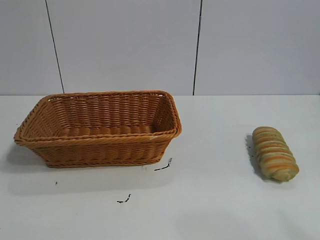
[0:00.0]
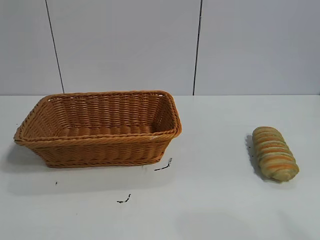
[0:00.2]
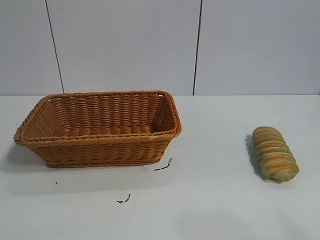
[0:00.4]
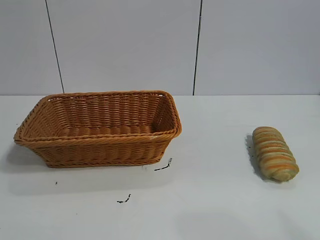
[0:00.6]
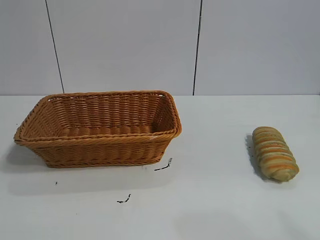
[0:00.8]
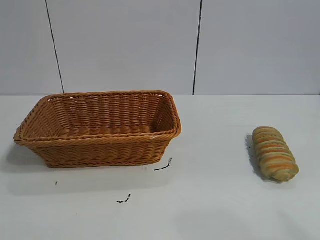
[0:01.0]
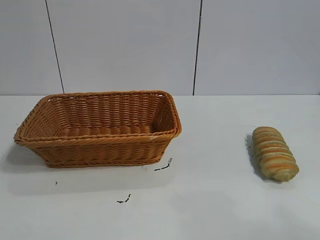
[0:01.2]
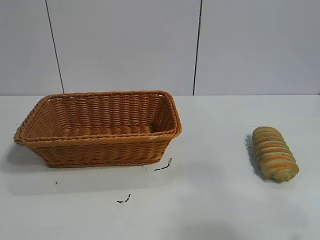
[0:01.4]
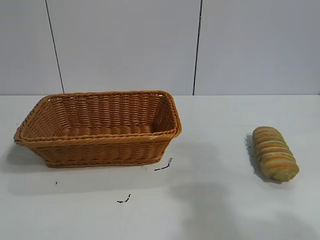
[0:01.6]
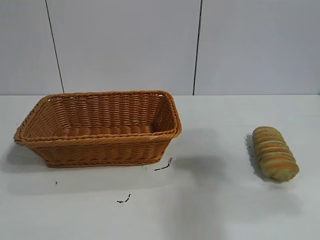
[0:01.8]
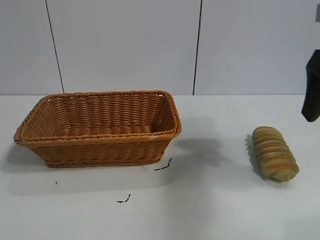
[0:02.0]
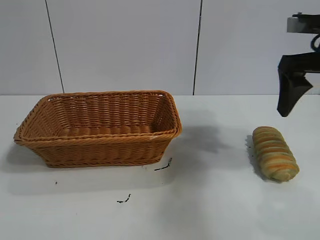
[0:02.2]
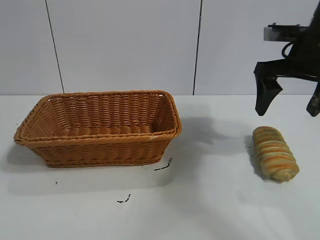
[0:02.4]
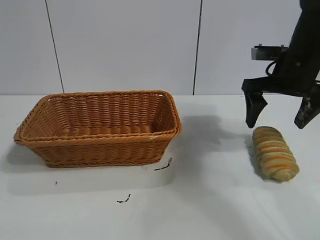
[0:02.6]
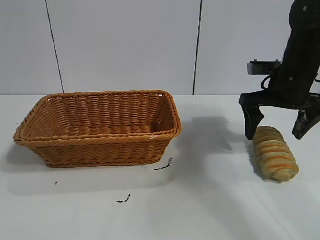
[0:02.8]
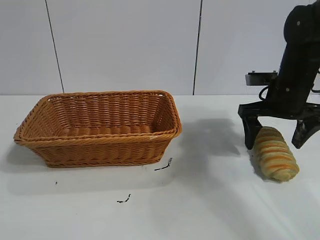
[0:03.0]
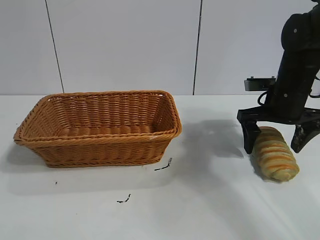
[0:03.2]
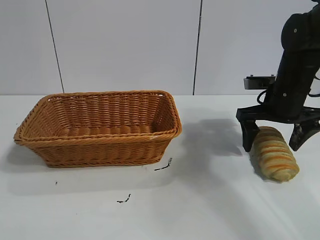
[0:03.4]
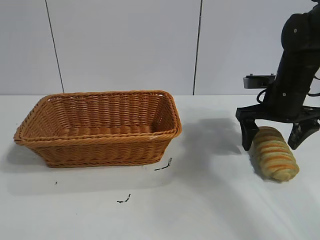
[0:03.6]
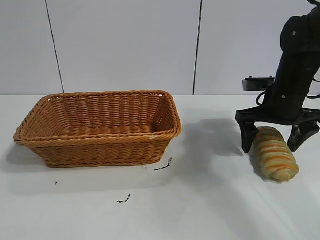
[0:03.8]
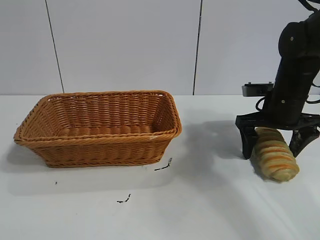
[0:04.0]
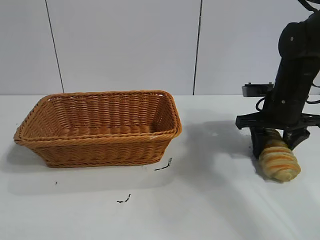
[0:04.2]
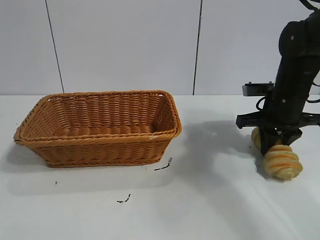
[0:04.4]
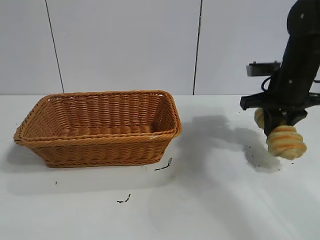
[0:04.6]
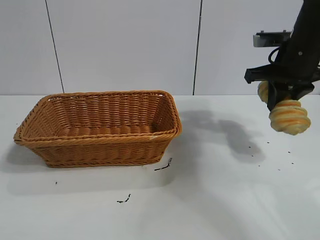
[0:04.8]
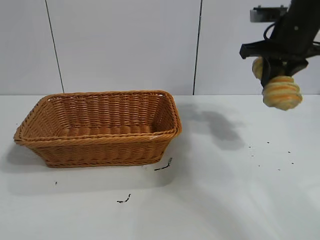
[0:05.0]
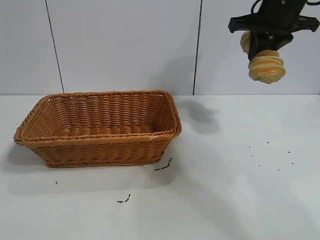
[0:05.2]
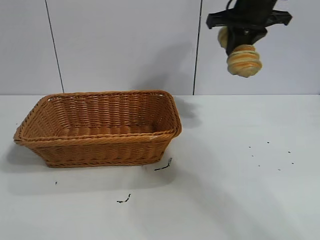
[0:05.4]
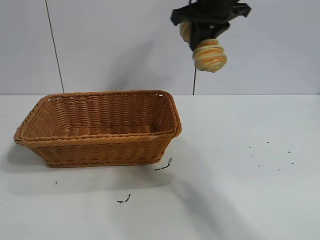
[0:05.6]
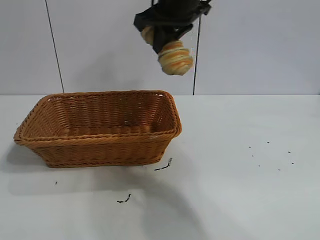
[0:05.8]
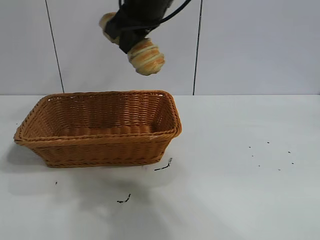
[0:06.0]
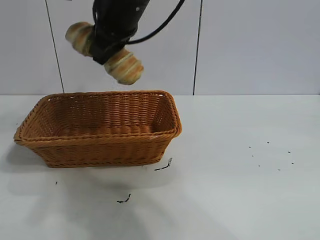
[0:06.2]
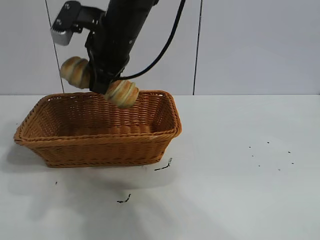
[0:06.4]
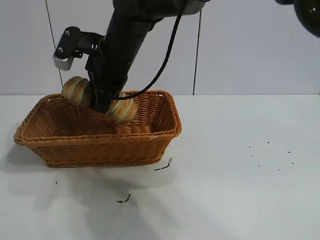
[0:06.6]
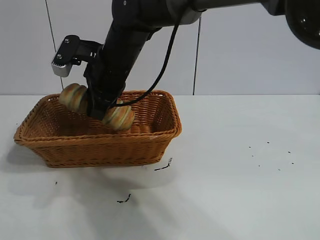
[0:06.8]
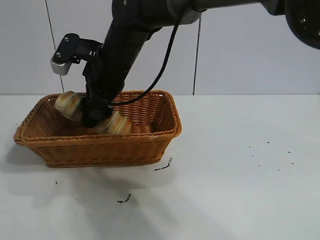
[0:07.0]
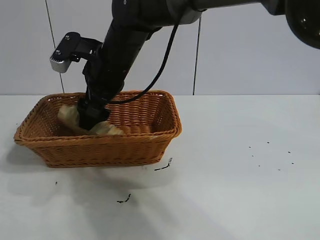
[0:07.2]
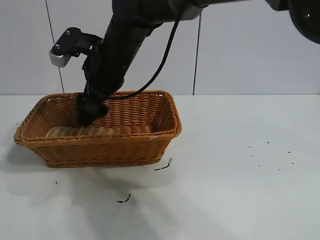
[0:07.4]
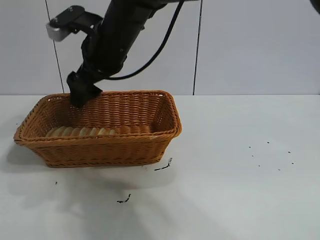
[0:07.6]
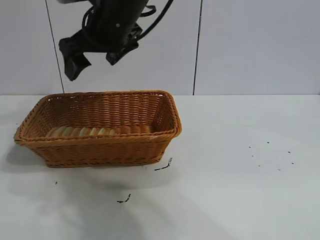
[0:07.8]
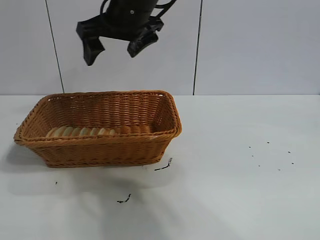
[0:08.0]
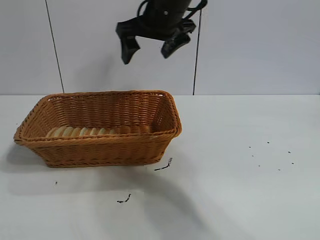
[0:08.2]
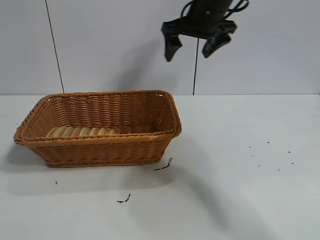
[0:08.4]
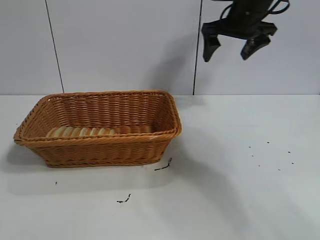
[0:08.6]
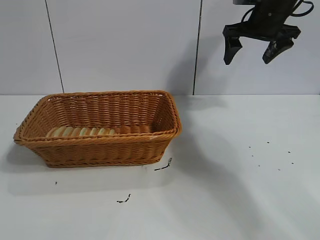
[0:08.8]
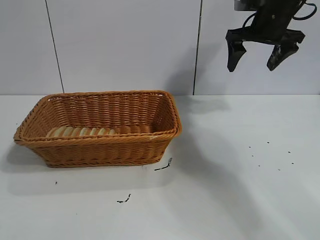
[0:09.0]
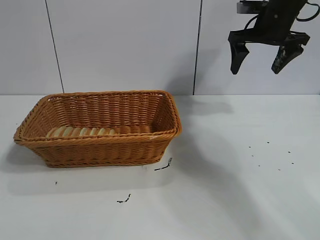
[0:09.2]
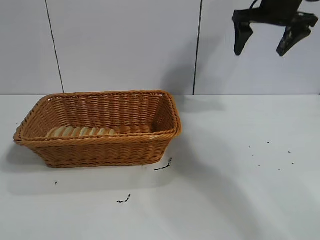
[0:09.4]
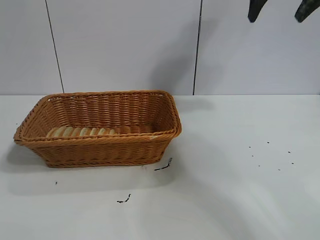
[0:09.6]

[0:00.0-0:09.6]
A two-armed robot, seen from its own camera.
Task of the whole recording: pick up the long bread and put it into the basket.
Step, 0:02.0 to 0:04.4: Grasp the long bread with right gripper.
Step, 0:04.6 to 0:07.6: Place the long bread in the basket with right gripper.
